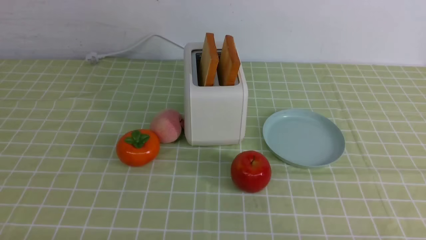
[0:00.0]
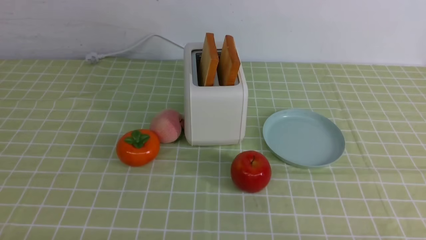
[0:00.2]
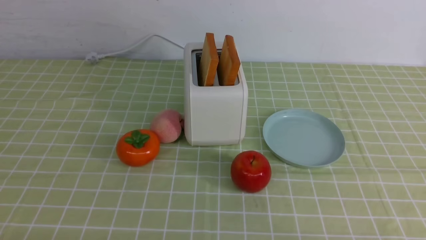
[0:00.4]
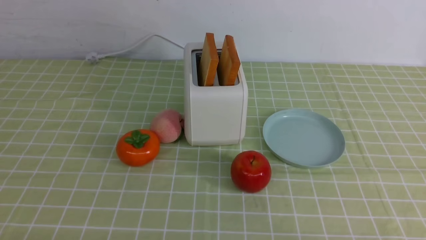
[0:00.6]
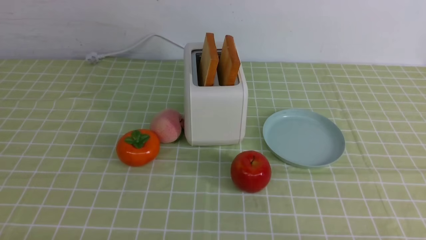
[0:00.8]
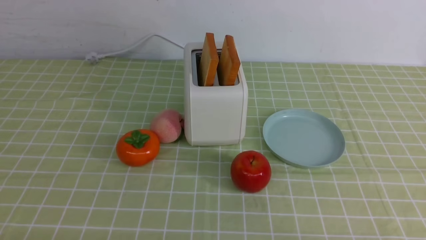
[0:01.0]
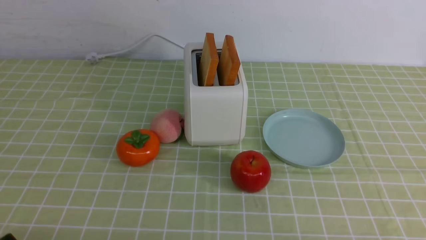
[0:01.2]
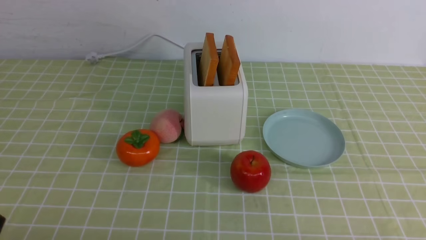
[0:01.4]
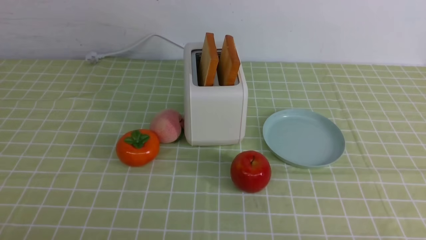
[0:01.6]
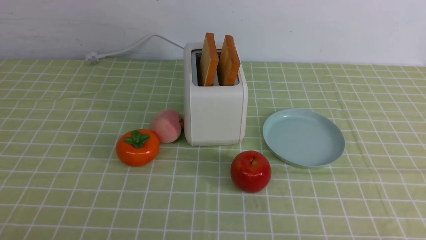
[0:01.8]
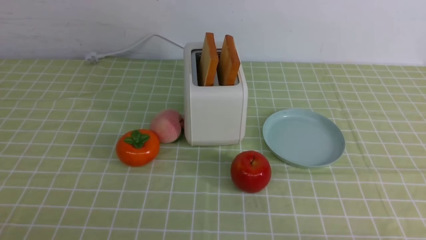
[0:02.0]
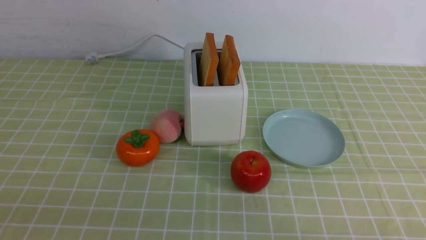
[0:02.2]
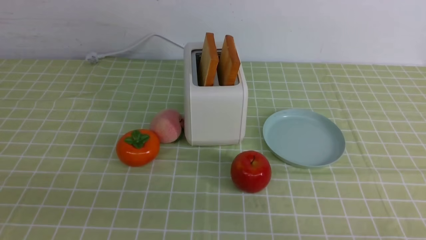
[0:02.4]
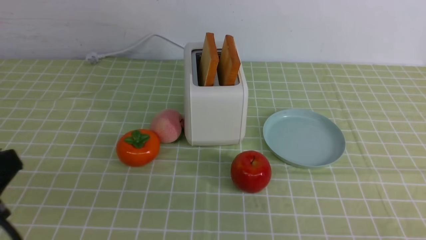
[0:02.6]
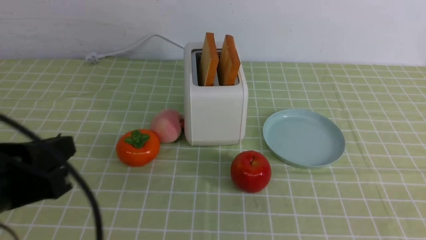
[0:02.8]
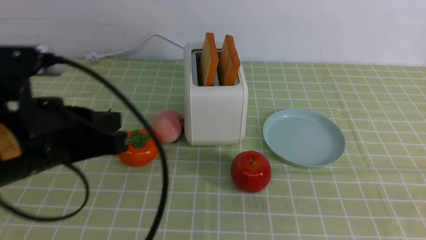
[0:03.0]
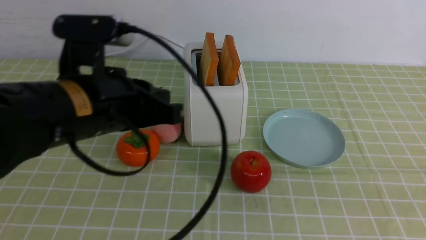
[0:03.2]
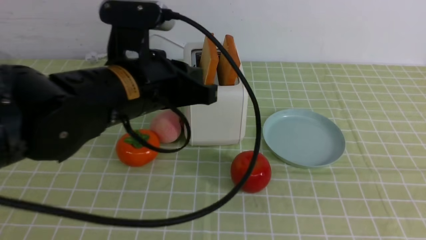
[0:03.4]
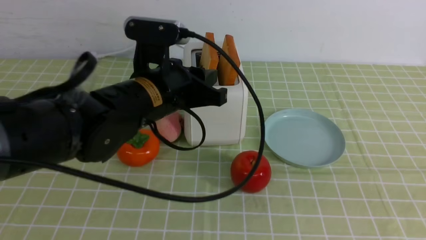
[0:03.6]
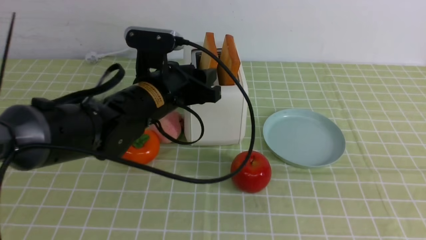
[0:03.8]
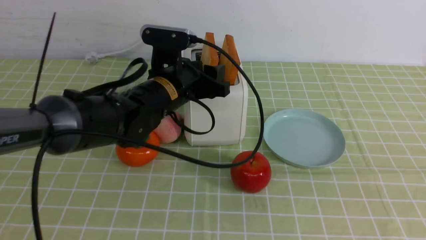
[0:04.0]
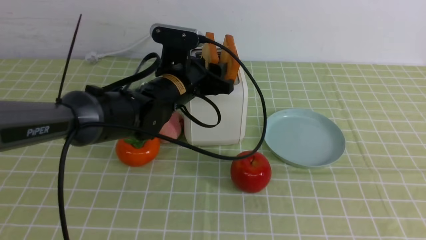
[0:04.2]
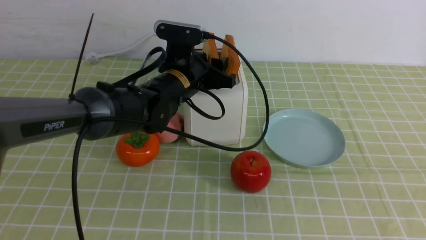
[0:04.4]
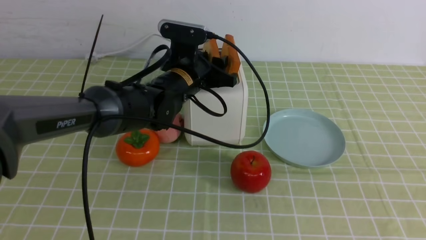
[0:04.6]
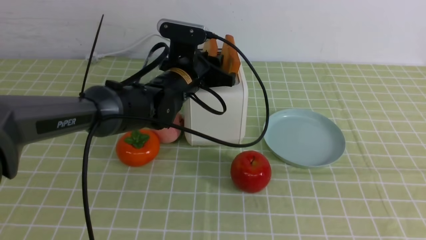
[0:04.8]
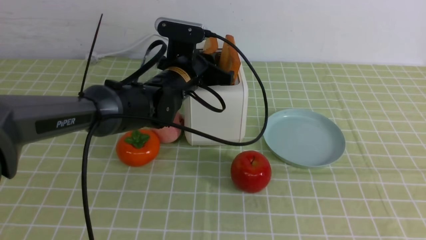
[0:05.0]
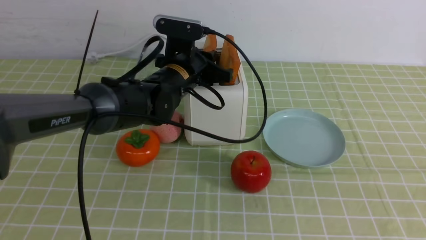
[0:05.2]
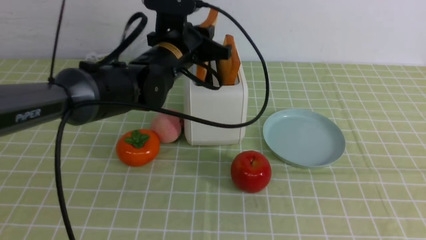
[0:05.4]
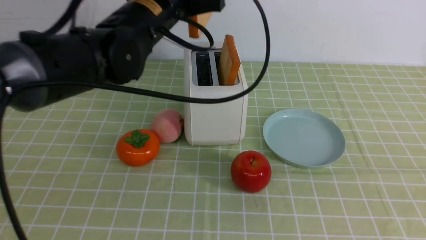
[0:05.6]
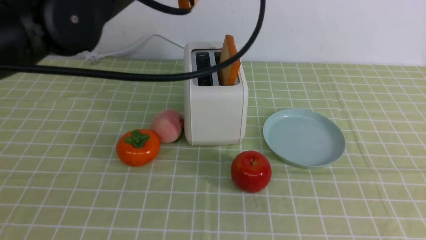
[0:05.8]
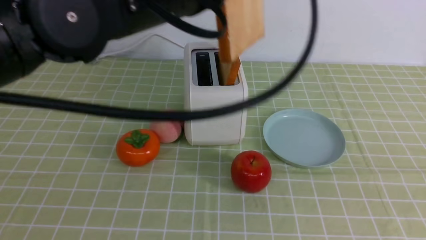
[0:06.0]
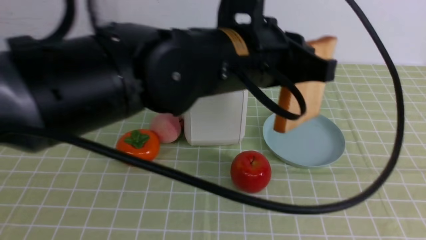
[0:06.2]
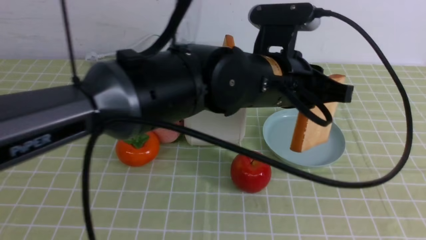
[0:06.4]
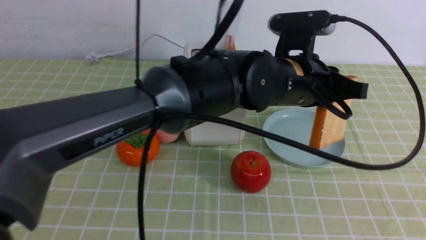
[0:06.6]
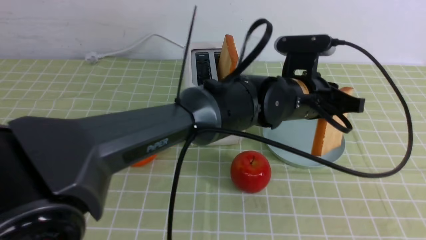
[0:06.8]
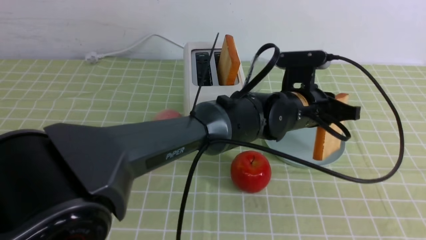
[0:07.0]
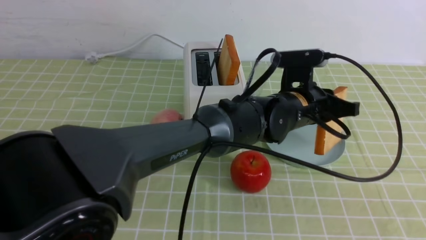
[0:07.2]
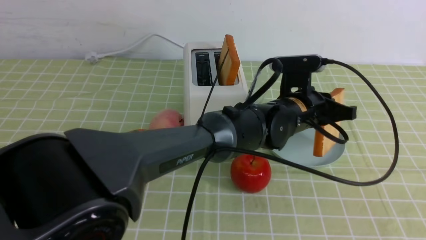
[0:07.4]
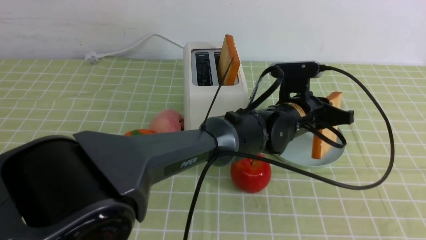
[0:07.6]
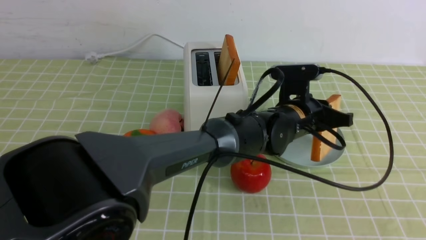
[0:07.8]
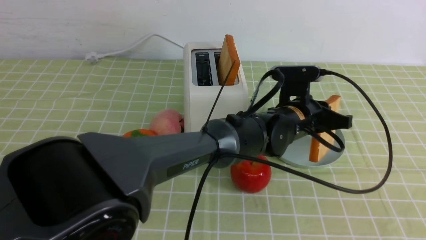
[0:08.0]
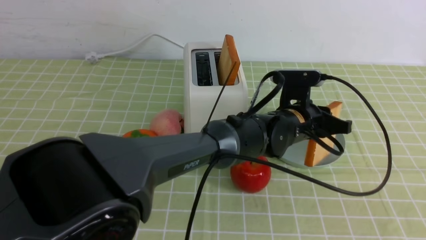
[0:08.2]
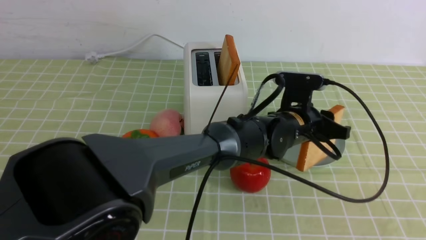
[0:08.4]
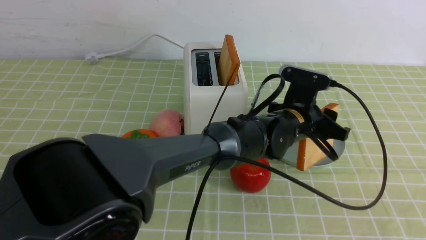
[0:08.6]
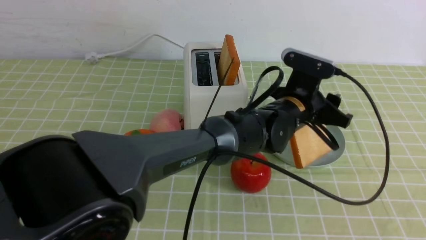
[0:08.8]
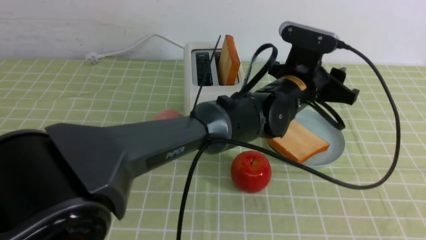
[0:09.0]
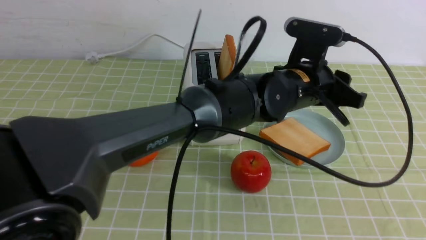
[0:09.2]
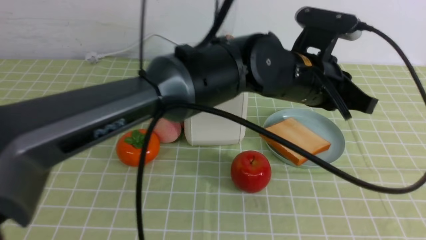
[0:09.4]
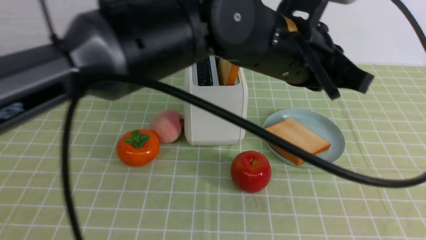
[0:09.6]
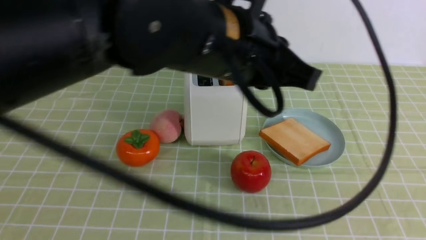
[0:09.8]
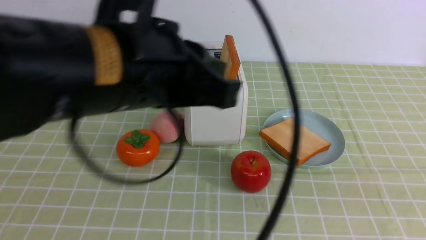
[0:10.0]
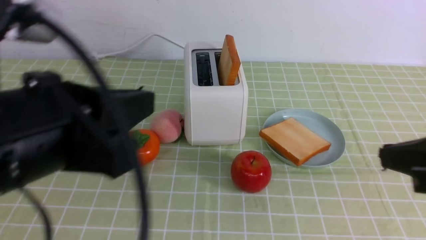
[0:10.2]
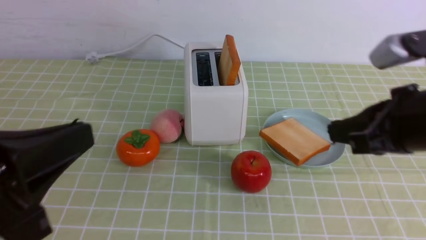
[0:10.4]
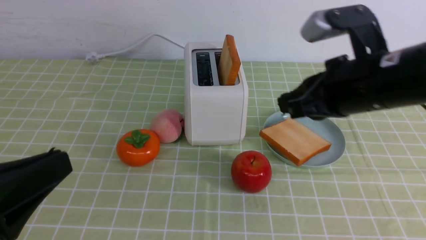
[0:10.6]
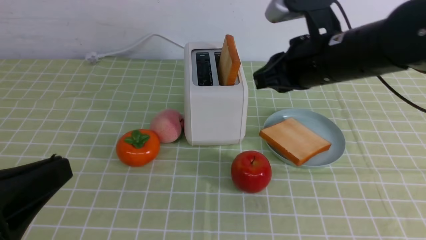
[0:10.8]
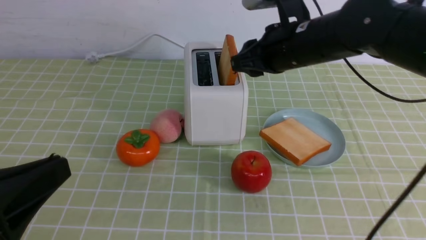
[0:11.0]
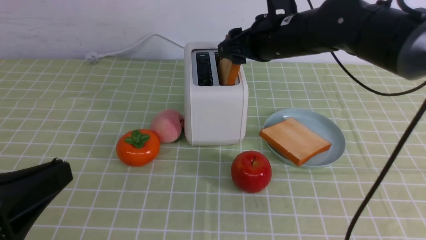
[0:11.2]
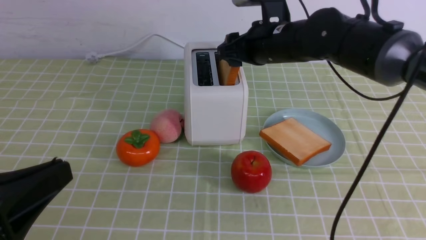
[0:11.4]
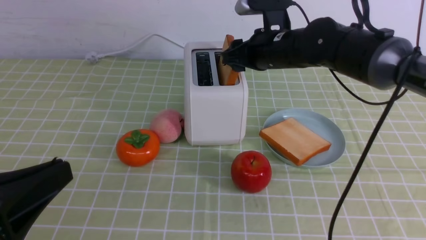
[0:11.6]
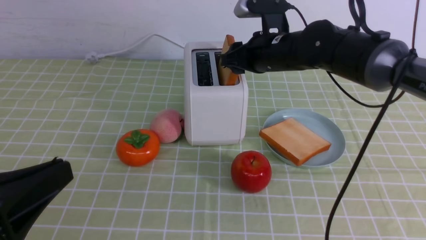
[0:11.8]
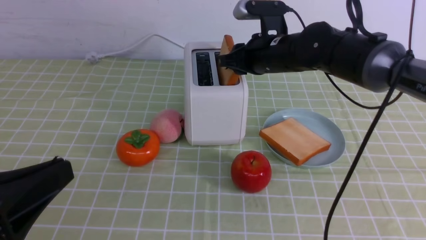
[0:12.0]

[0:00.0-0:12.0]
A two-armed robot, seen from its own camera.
Task of the whole recording: take toasted bread from bread machine on green coffee tablecloth place on plate.
Step, 0:00.0 to 0:05.4: use the left arm to take out a slice of bread.
Step, 0:05.6 to 0:09.0: use the left arm to put a slice of bread into the empty plate.
0:01.6 to 0:03.0: The right gripper goes roughly 15 cm upward, and closes its fingers. The left gripper shifts approximately 20 cm forward, upward and to the right, and closes its fingers.
0:03.0 to 0:04.4: The left gripper travels forward and to the right by some 25 cm, and opens up. Meanwhile the right gripper changes place by approximately 5 cm.
0:04.4 to 0:06.0: The left gripper shifts about 20 cm upward and backward, and closes.
0:06.0 to 0:07.6: The left gripper goes approximately 25 cm downward, to the right and forward. Meanwhile the right gripper heads backward, covering about 5 cm.
0:07.6 to 0:09.0: The left gripper changes place by some 5 cm, and opens.
0:09.0 to 0:10.4: The right gripper heads forward and to the left, covering some 20 cm. Meanwhile the left gripper is displaced to the left and backward by about 40 cm, and closes.
0:10.4 to 0:12.0: The right gripper shifts some 25 cm forward and to the left, and opens up.

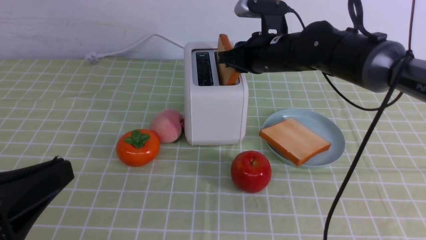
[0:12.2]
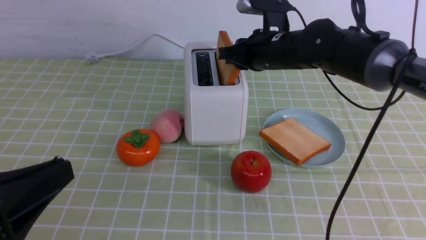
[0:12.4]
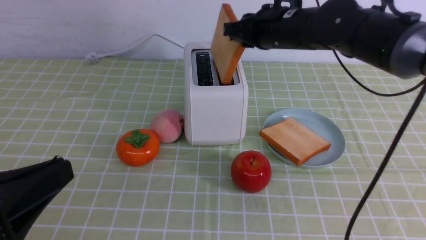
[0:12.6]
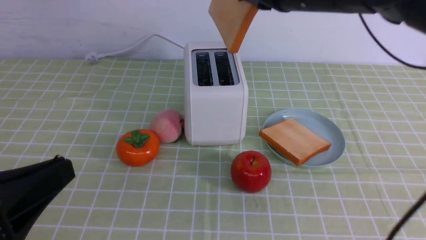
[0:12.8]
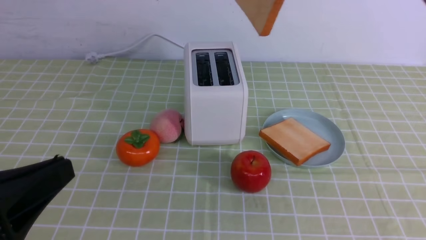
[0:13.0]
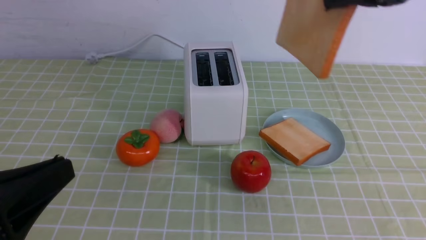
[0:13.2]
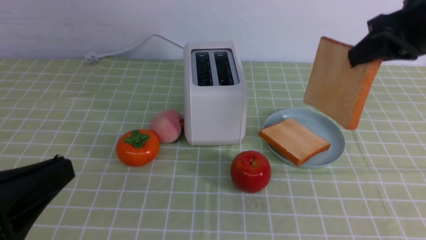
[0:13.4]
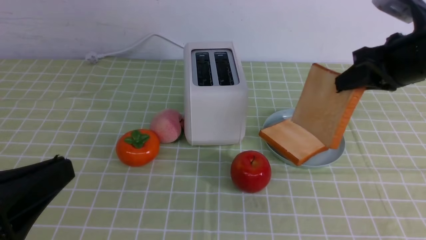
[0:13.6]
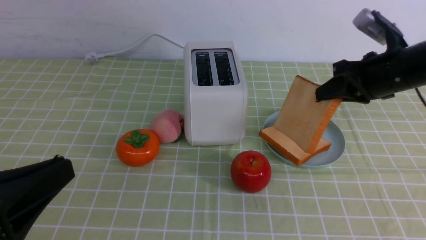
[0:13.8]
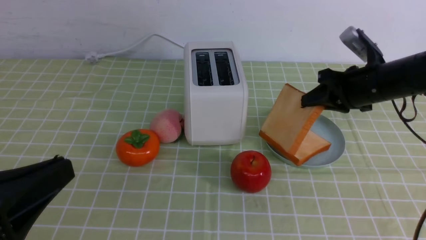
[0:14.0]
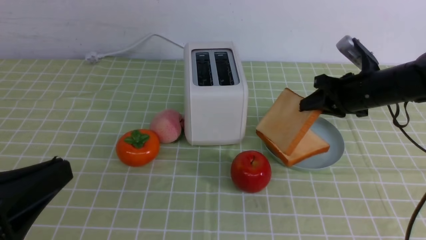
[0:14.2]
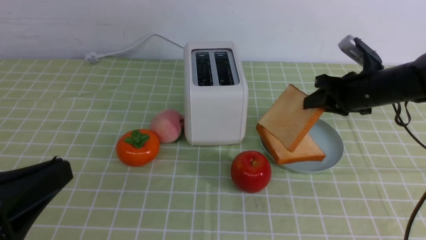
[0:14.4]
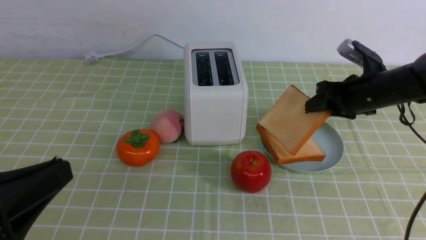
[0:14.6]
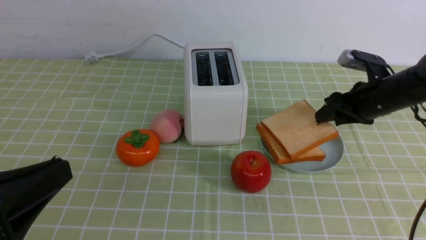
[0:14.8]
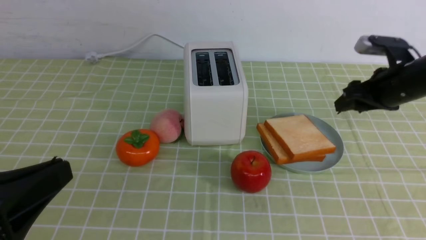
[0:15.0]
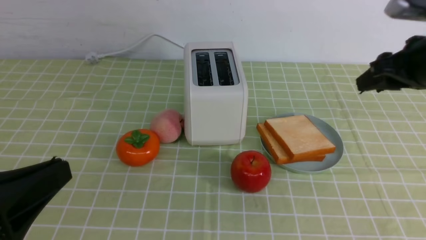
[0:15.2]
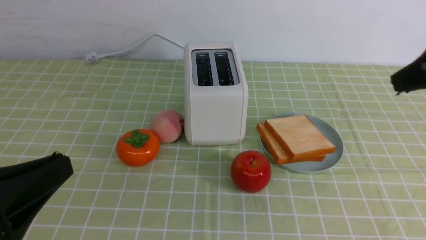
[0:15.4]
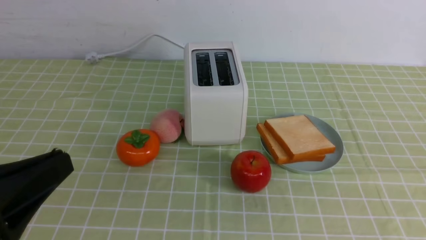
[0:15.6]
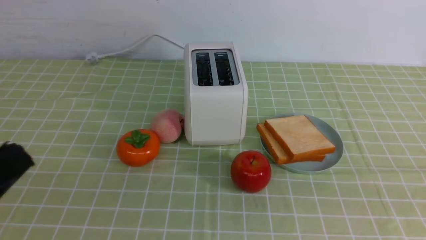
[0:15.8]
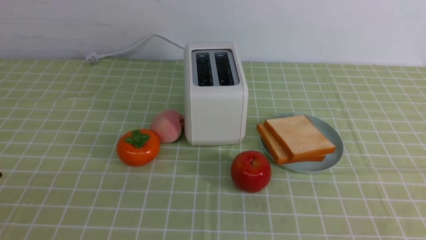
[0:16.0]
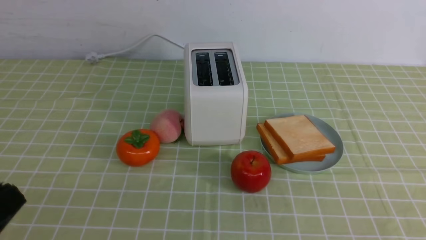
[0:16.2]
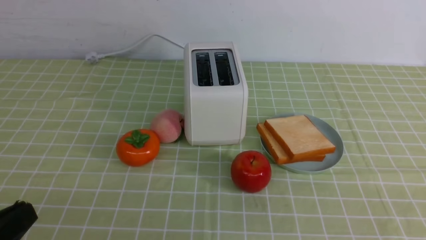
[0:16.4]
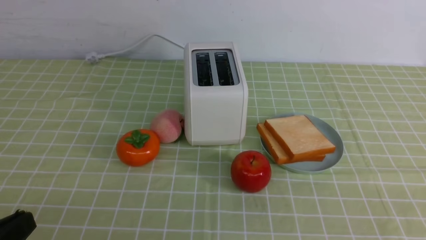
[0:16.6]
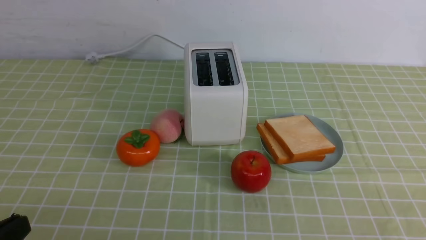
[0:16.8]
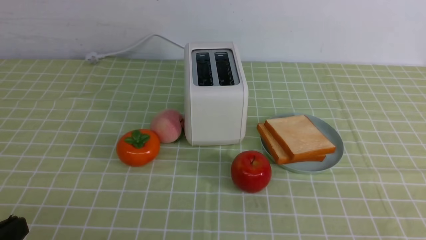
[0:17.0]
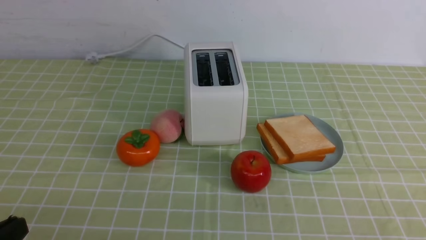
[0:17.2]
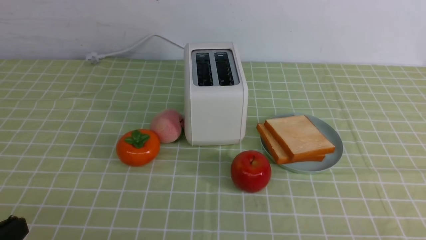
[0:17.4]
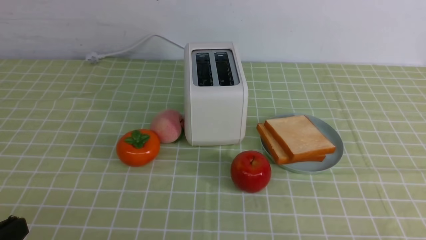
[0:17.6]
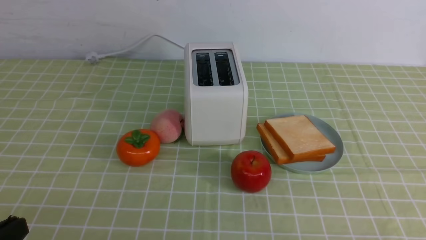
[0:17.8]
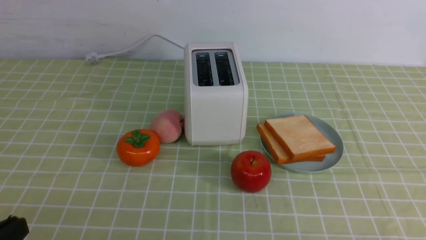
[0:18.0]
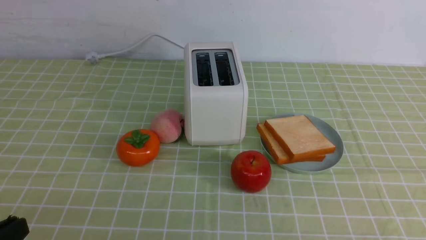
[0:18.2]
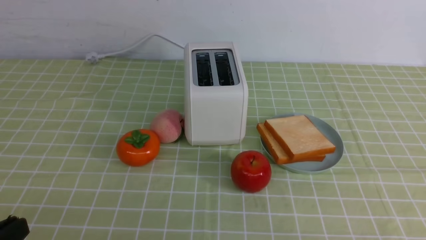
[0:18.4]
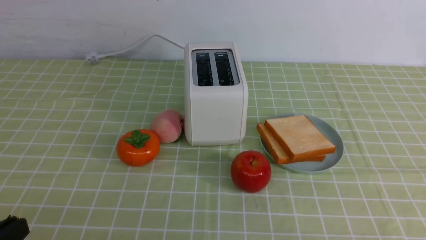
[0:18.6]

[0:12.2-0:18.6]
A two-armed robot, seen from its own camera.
Task of the whole recording: take toasted bread from bread machine on green coffee tablecloth place on plate.
Step, 0:12.8 to 0:15.0: use the right arm to put a slice of bread into the plate.
0:12.2 to 0:13.8: The right gripper shifts roughly 15 cm to the right and backward.
0:13.8 to 0:15.4: The right gripper heads backward and upward, covering about 20 cm, and opens, then closes once more.
0:15.4 to 0:17.0: The right gripper goes roughly 25 cm backward and downward, while the left gripper goes approximately 5 cm downward.
